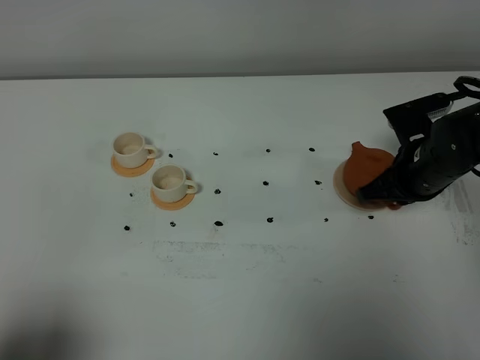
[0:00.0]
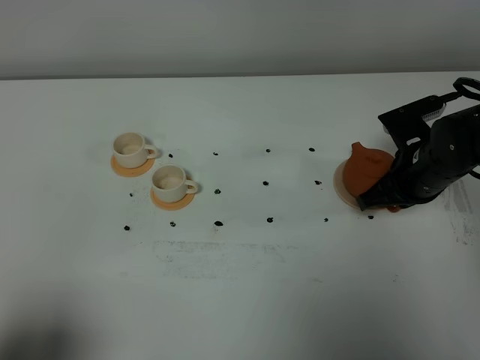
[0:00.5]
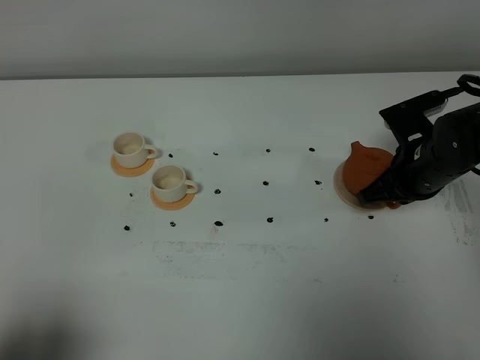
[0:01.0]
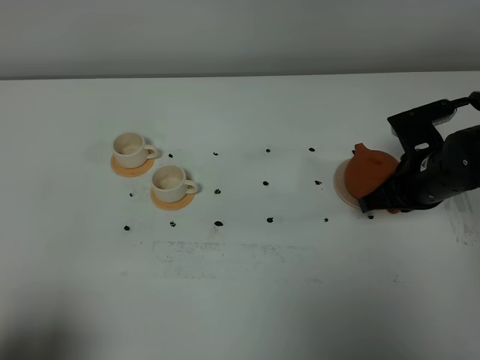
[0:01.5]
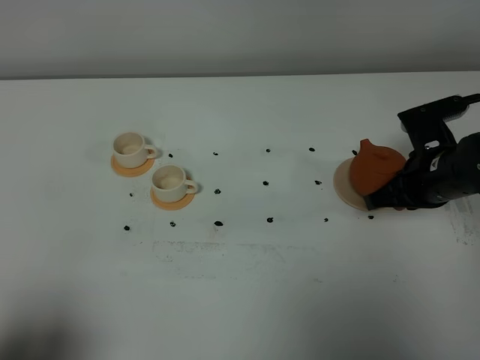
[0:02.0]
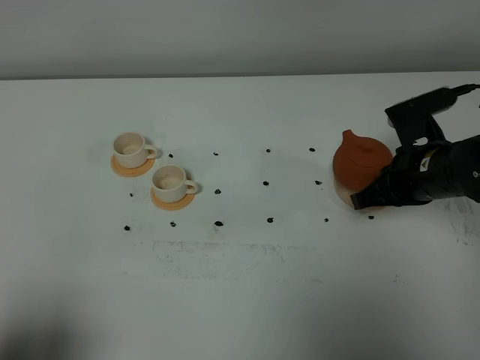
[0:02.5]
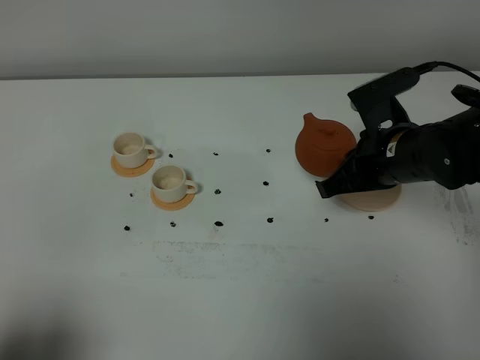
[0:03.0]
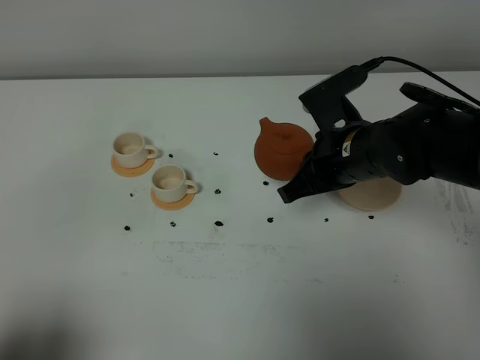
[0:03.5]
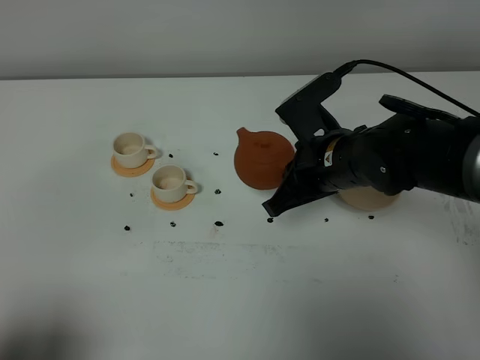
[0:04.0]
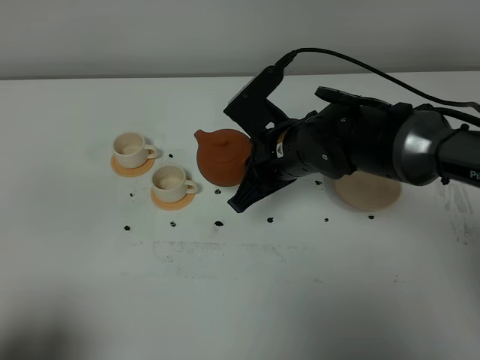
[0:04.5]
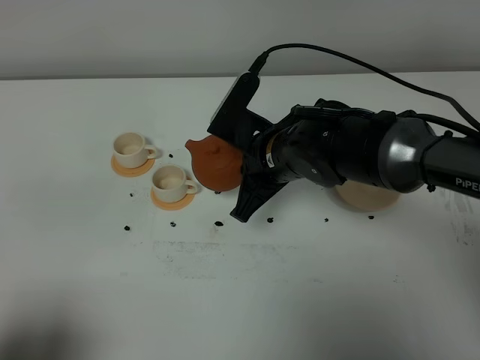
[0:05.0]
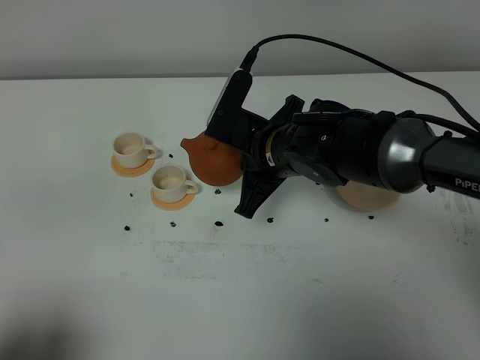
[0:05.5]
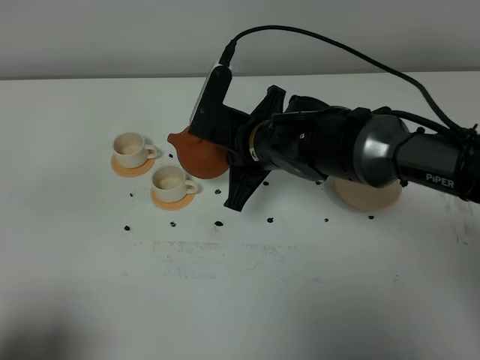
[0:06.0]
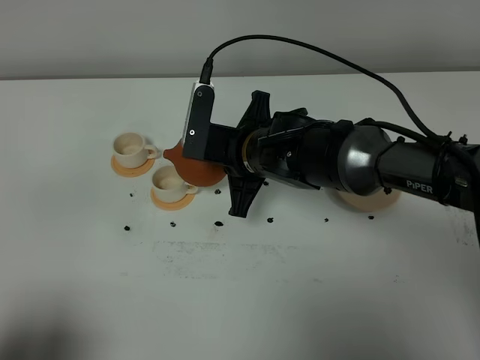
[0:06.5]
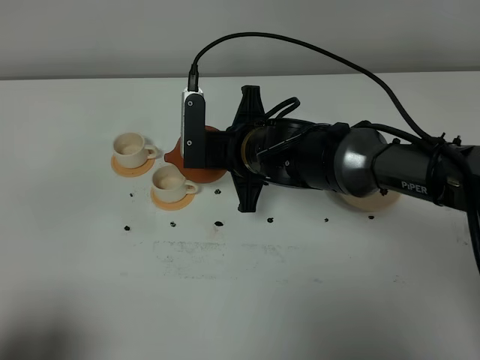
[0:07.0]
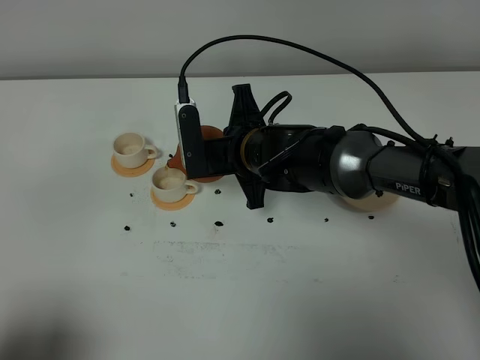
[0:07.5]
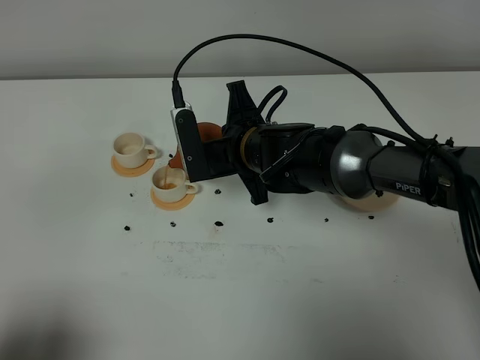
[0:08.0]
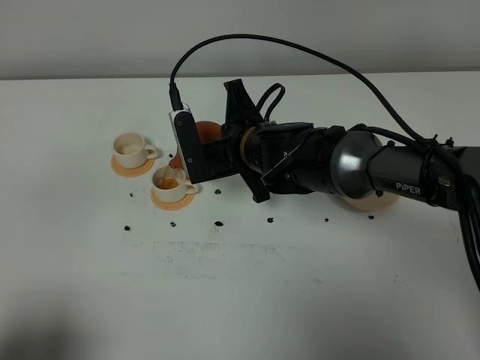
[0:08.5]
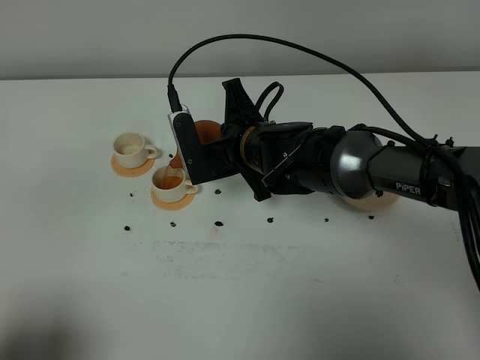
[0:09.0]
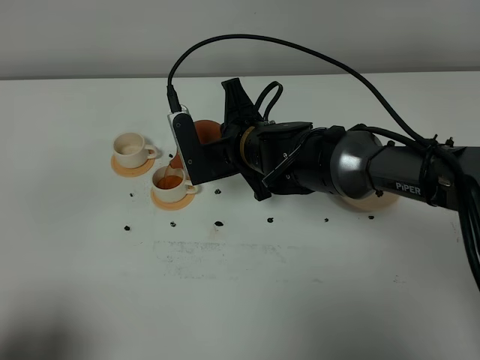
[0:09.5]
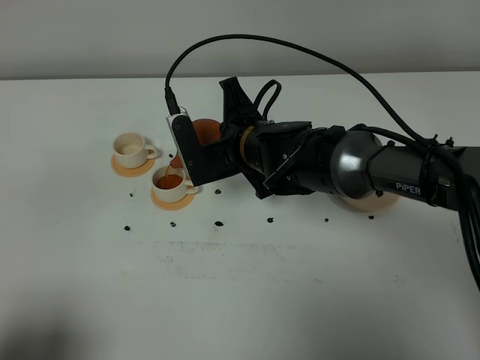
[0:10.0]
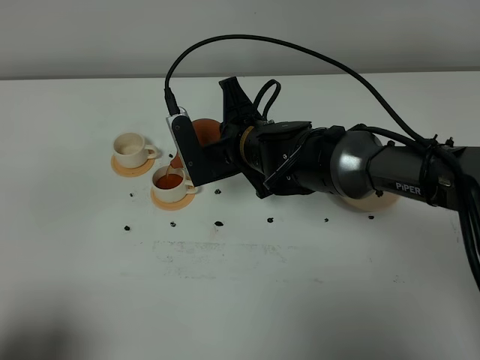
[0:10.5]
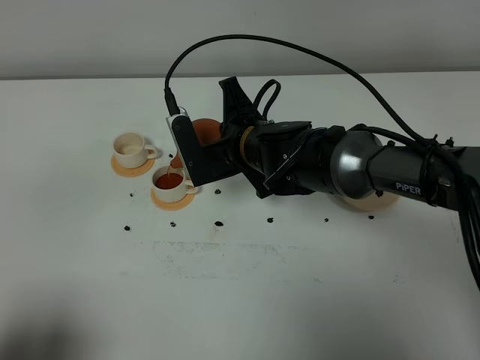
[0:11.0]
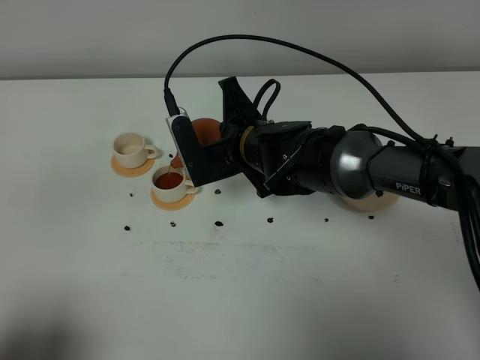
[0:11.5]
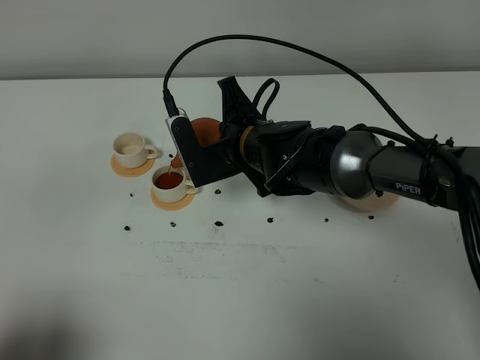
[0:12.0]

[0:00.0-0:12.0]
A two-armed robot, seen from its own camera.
Task of the whole recording: grasp the brown teapot and pour the tea into the two white teacups one by one, put the brown teapot back in its original place.
0:00.0 to 0:02.0: The grippers make only small movements.
0:02.0 to 0:04.0: The right gripper heads to the left, covering approximately 15 cm.
0:04.0 to 0:06.0: The right gripper goes some 5 cm to the left.
0:08.0 to 0:10.0: The grippers move only a little.
0:10.0 to 0:12.0: Both grippers stay about where they are.

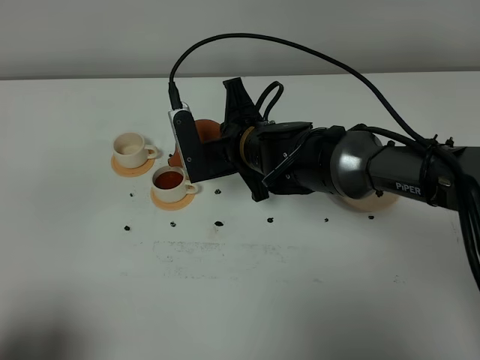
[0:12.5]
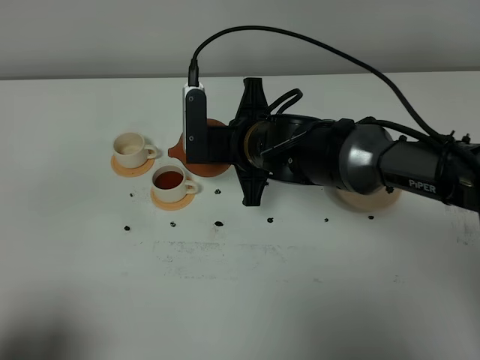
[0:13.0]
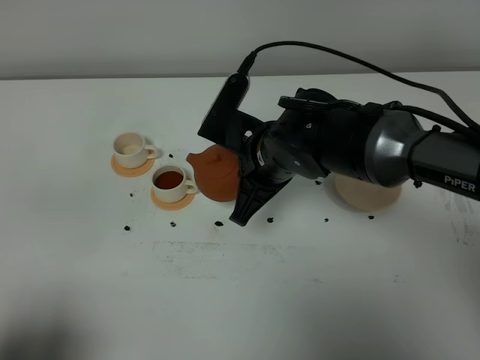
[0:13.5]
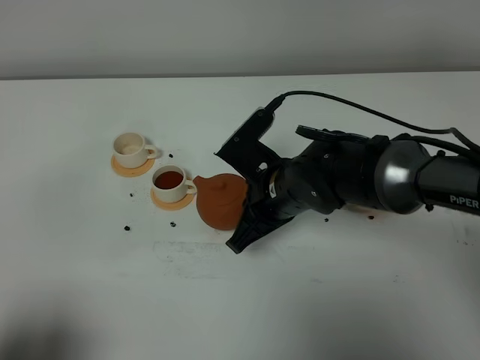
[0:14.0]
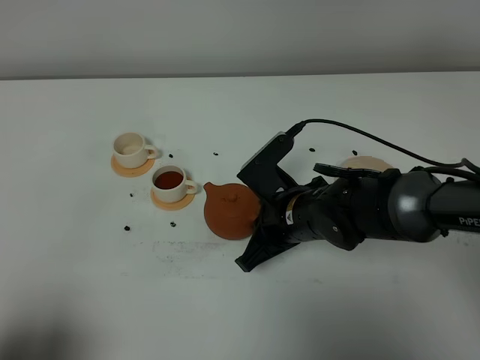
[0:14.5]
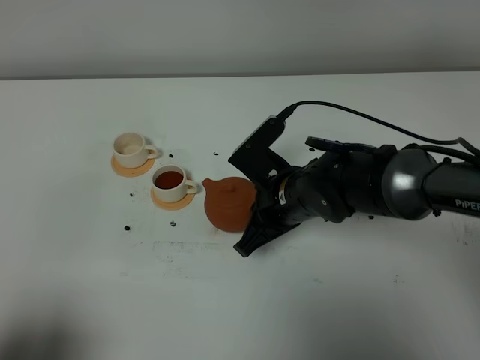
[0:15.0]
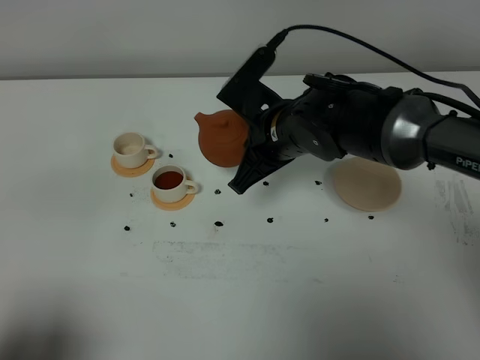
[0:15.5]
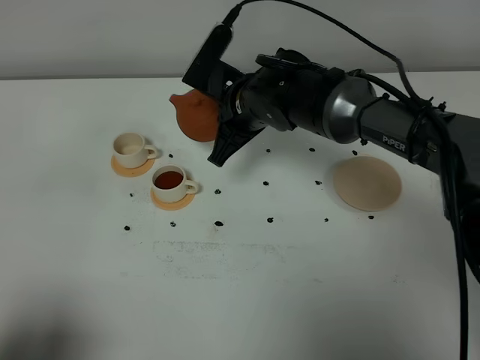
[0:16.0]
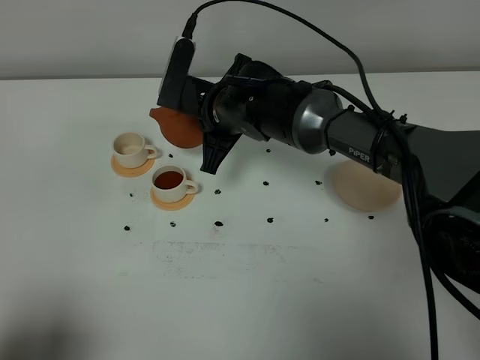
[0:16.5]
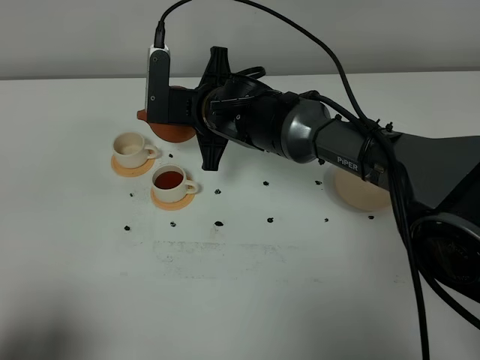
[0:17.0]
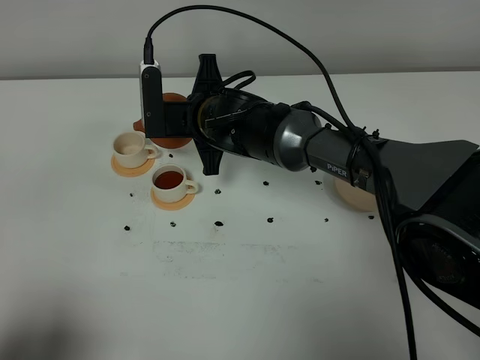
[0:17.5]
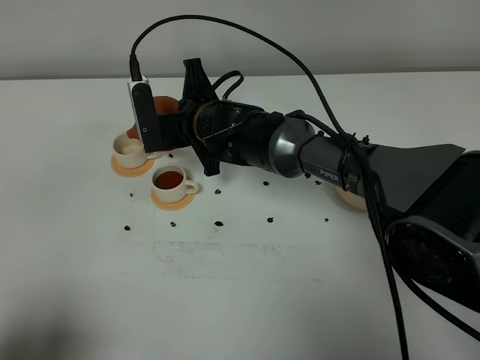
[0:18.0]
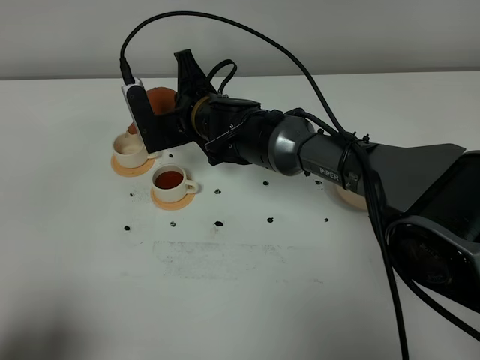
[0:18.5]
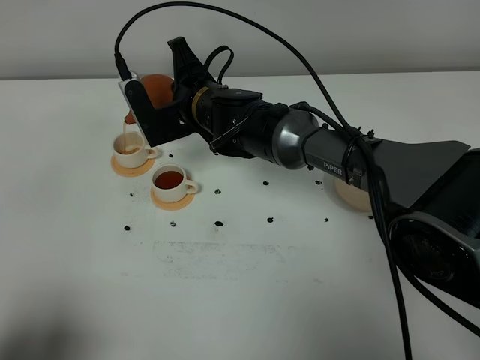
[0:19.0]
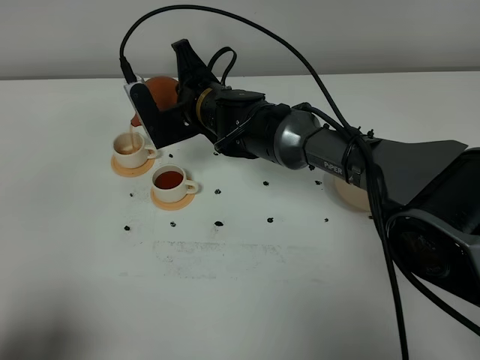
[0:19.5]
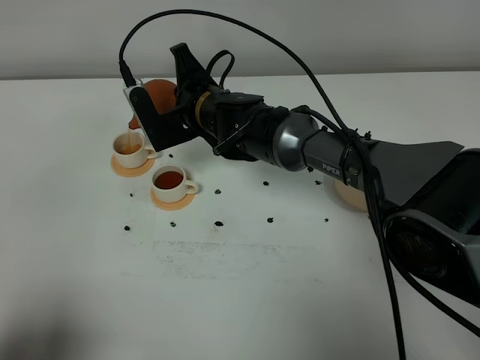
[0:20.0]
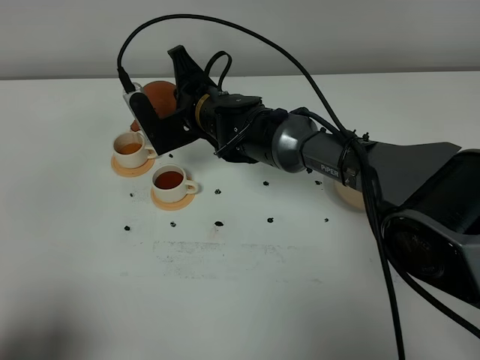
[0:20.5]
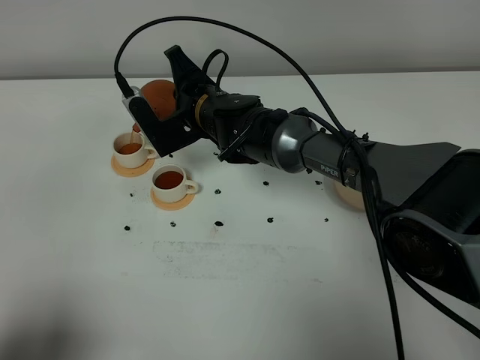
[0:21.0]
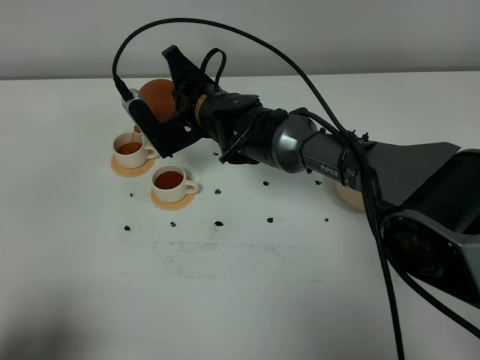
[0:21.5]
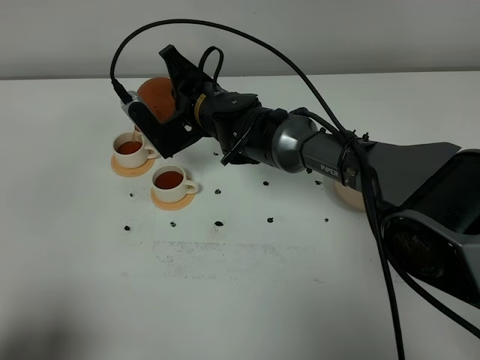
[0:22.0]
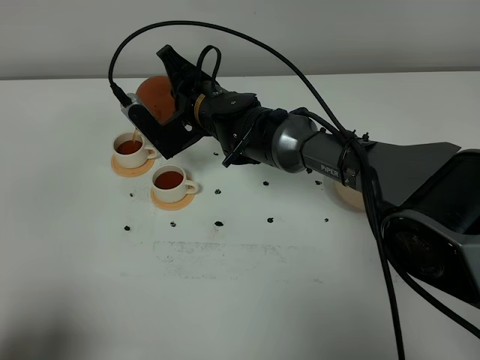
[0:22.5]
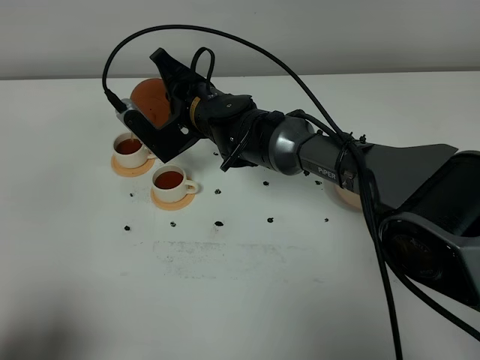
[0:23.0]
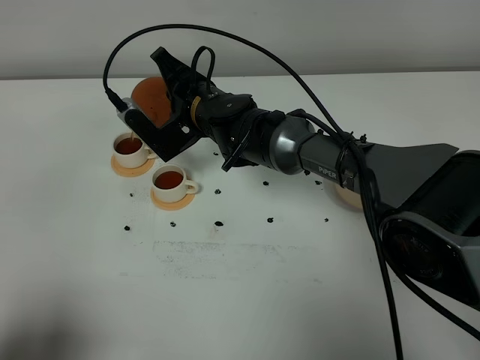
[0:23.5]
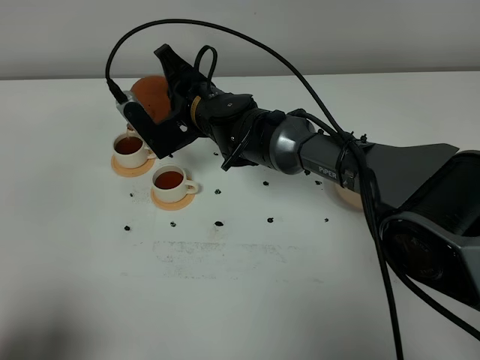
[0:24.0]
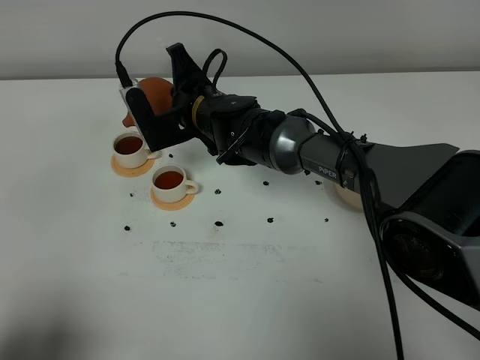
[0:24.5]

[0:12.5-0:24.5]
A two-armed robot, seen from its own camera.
Task of the whole recording: grasp the brown teapot and pour the tea into the two white teacups one by one, put the brown teapot back in its original place.
0:12.5 to 0:14.5: The right gripper travels backward by about 5 cm.
0:14.5 to 0:16.5: The right gripper goes approximately 15 cm forward, to the left and upward.
0:18.5 to 0:20.5: The grippers stay close to where they were, moving slightly.
0:20.5 to 0:24.5: There are only small adjustments of the grippers.

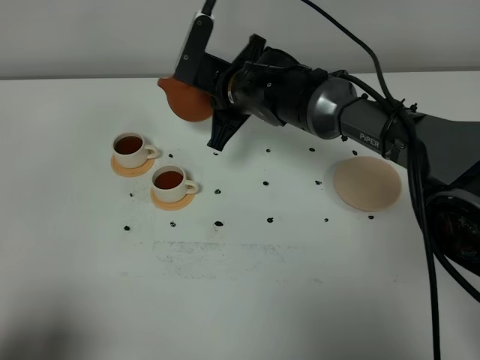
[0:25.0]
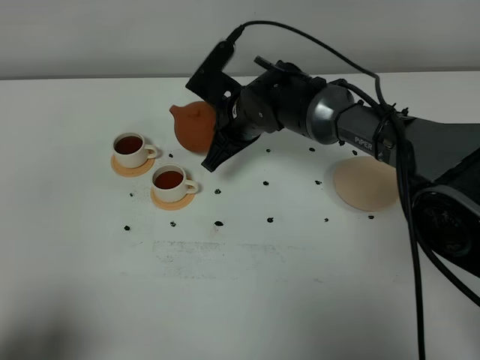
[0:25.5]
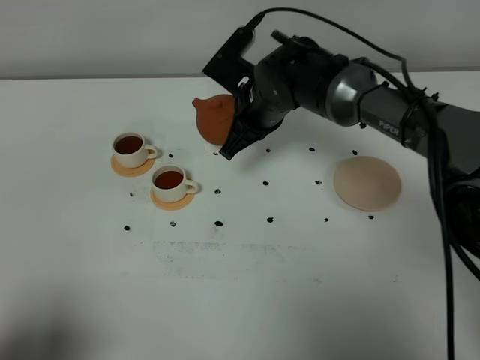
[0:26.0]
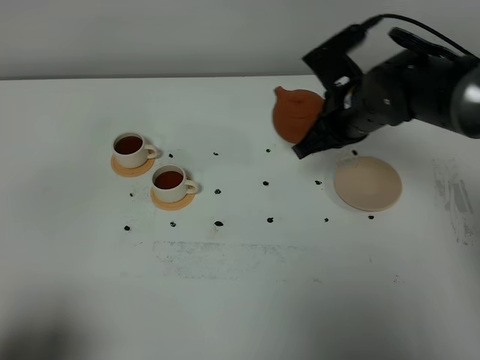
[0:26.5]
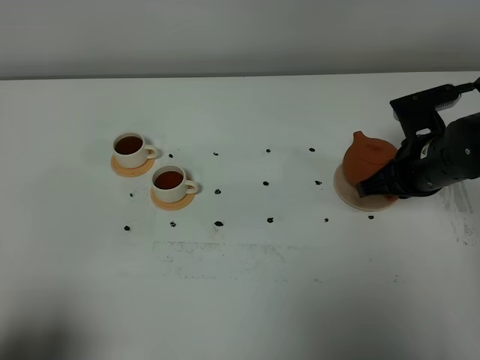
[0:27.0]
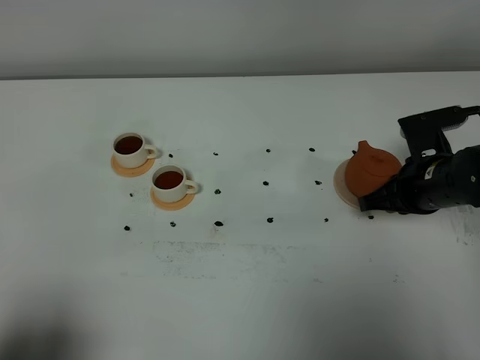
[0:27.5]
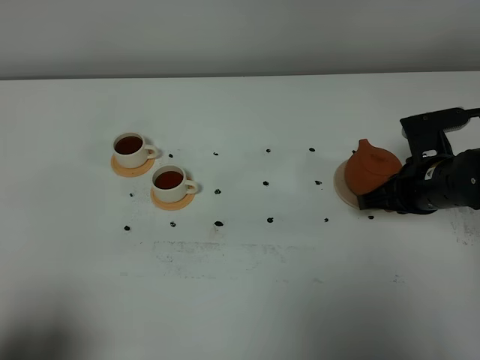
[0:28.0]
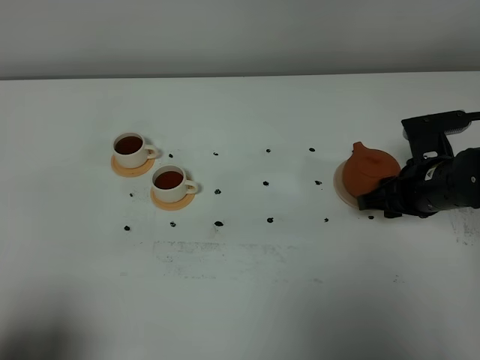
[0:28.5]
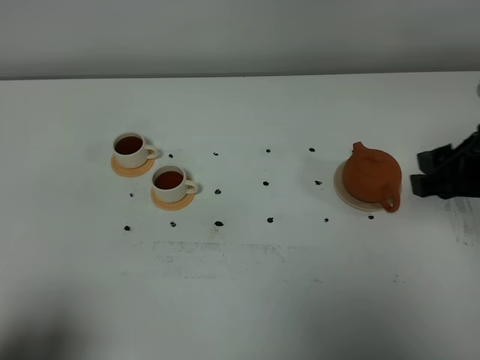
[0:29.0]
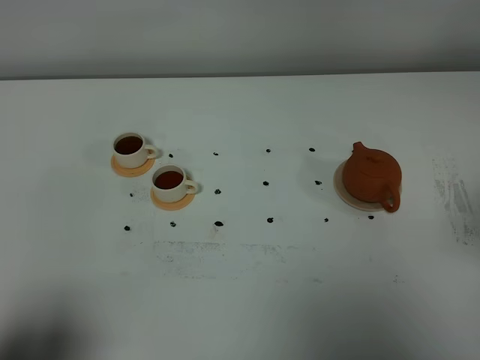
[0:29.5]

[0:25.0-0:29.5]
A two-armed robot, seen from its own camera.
Task of the whole recording: grasp the brown teapot and pour the tea into the two white teacups one by one, put the brown teapot back in its original place.
0:25.0 to 0:27.0: The right gripper is displaced to the right and backward by about 25 cm.
0:27.0 to 0:29.5: The right gripper goes about 25 cm backward and upward, and opens and closes again.
